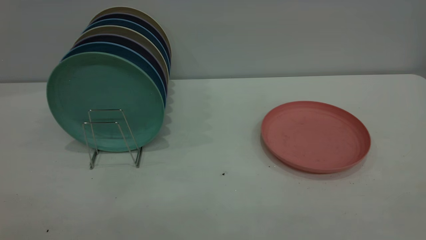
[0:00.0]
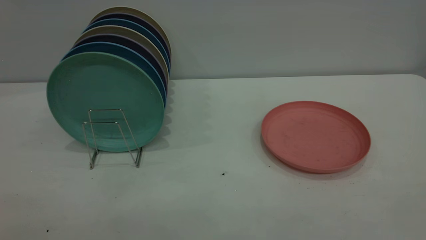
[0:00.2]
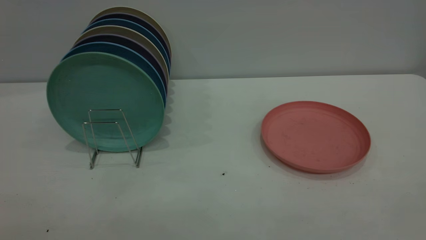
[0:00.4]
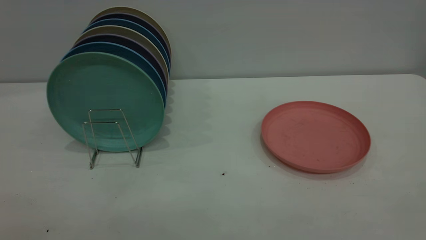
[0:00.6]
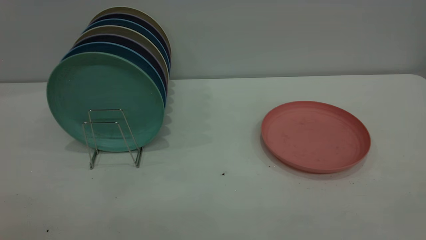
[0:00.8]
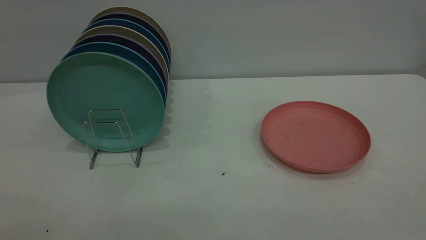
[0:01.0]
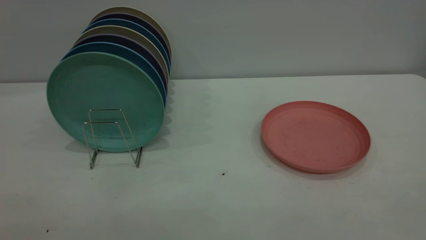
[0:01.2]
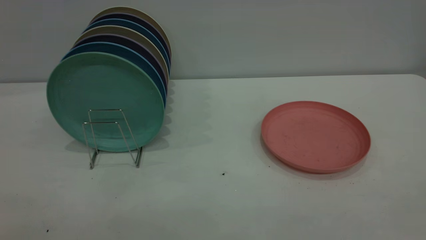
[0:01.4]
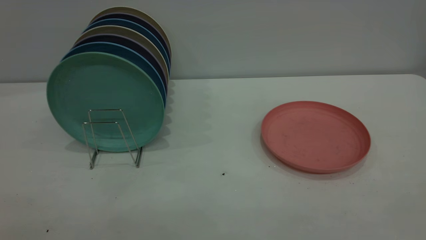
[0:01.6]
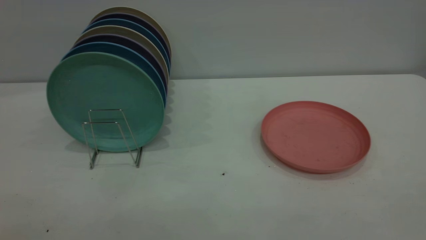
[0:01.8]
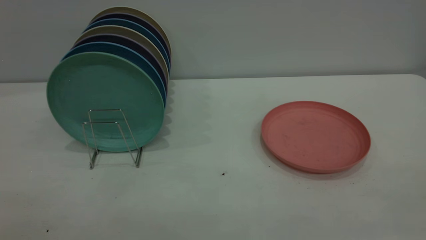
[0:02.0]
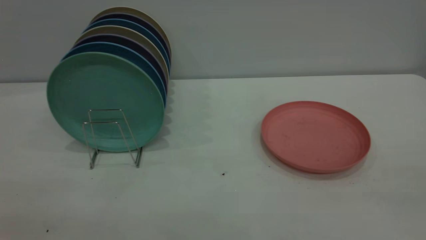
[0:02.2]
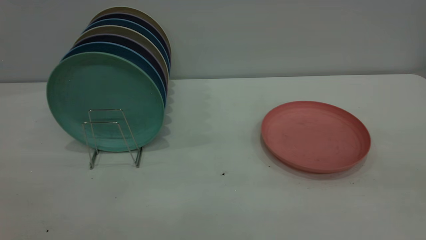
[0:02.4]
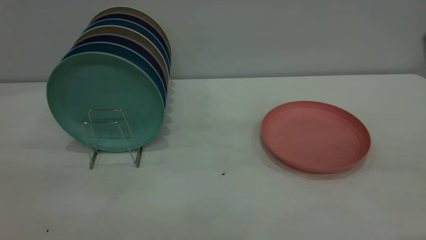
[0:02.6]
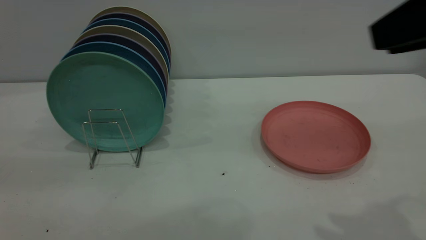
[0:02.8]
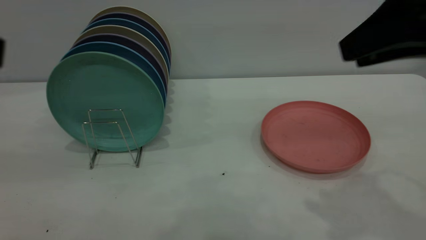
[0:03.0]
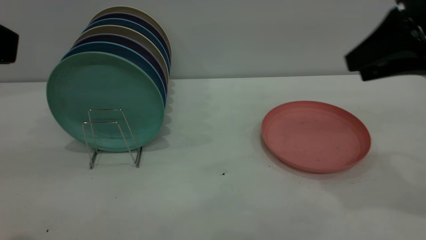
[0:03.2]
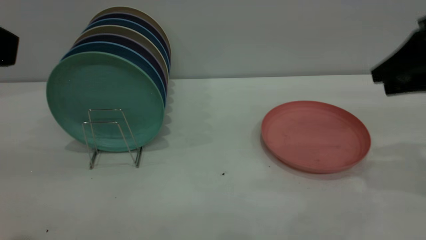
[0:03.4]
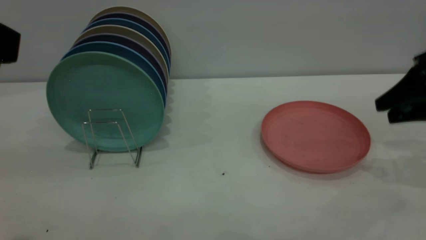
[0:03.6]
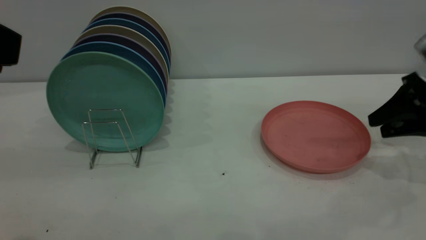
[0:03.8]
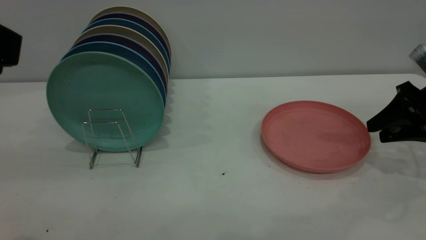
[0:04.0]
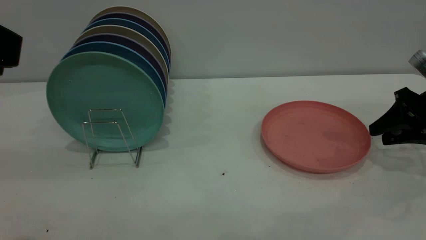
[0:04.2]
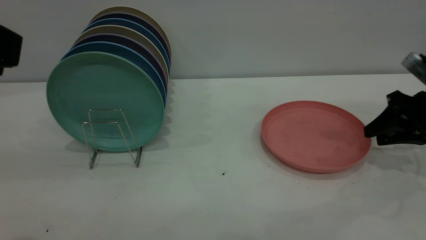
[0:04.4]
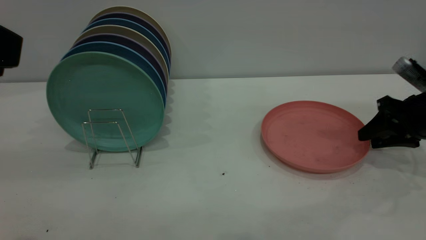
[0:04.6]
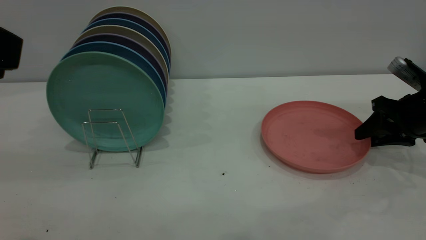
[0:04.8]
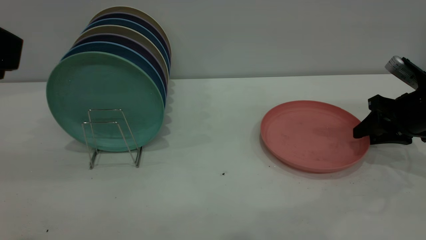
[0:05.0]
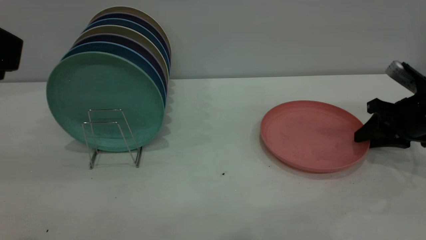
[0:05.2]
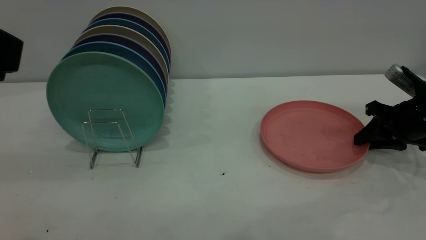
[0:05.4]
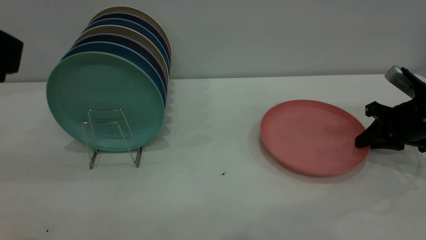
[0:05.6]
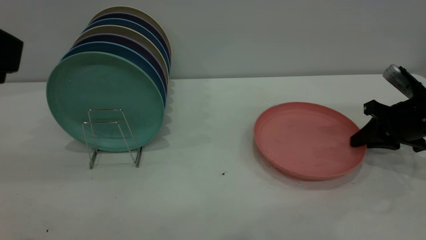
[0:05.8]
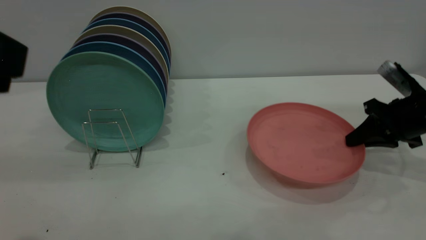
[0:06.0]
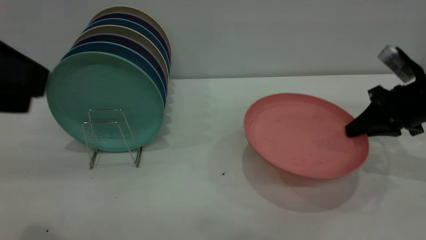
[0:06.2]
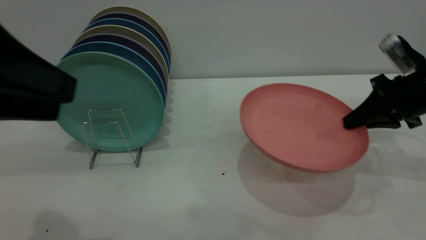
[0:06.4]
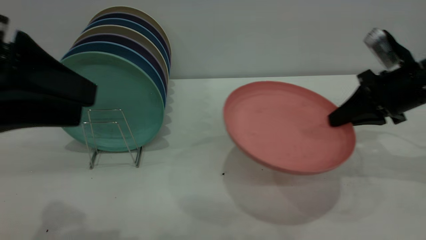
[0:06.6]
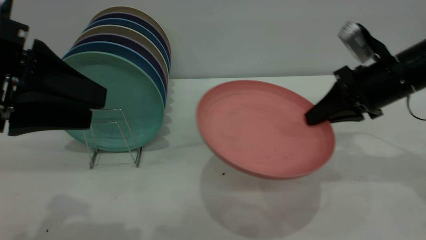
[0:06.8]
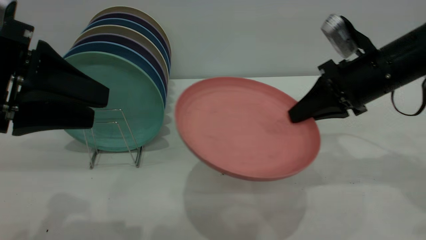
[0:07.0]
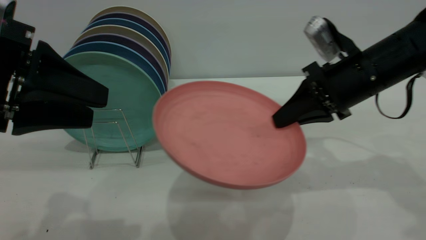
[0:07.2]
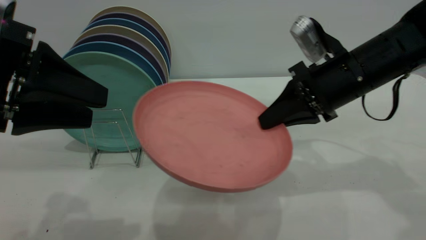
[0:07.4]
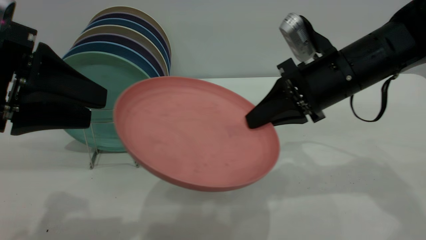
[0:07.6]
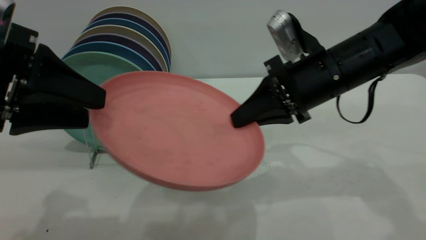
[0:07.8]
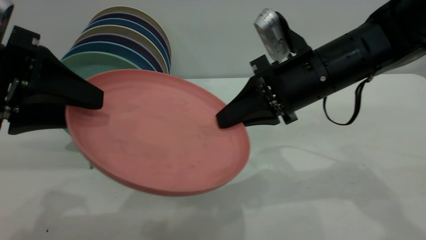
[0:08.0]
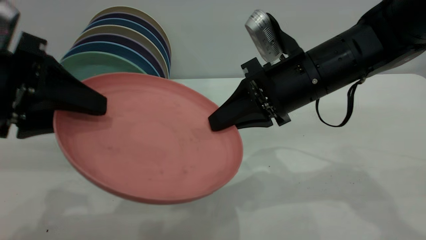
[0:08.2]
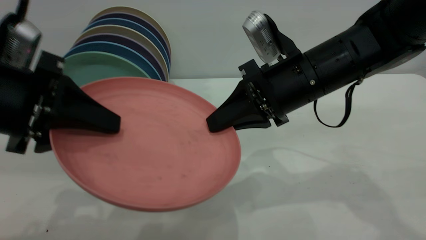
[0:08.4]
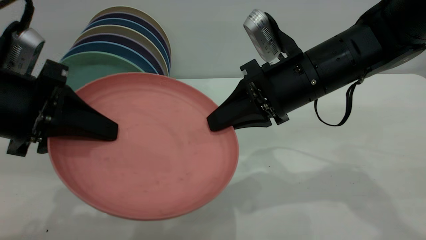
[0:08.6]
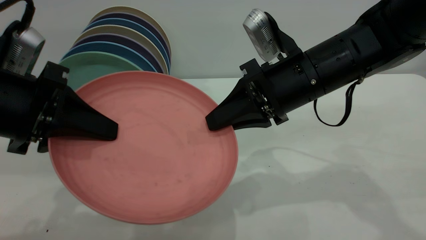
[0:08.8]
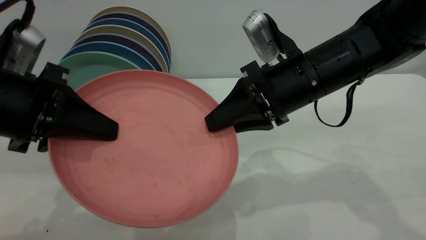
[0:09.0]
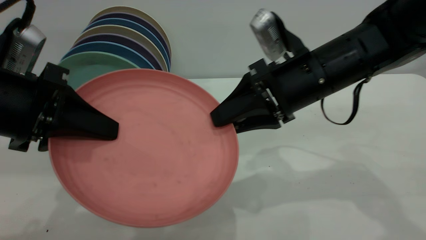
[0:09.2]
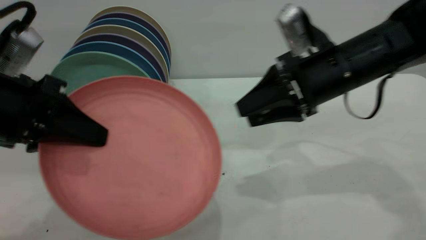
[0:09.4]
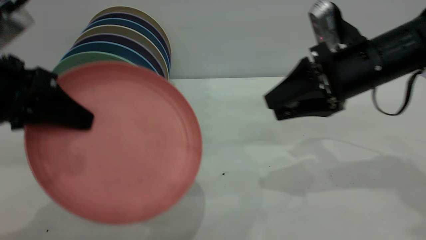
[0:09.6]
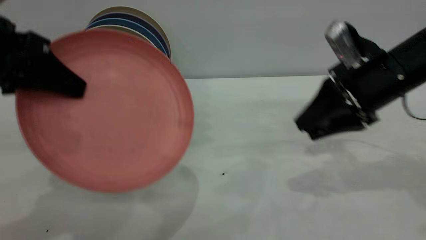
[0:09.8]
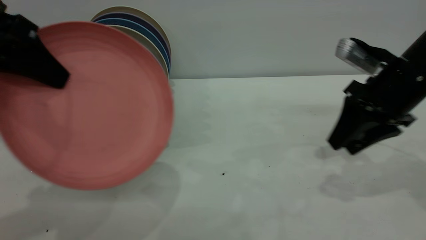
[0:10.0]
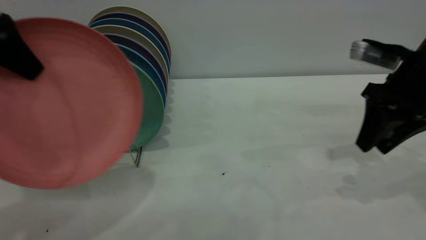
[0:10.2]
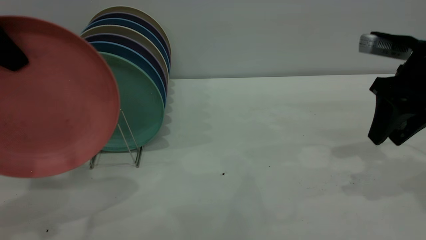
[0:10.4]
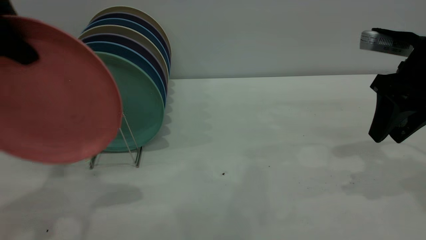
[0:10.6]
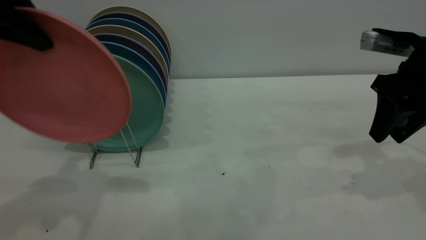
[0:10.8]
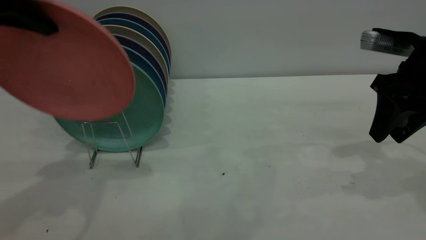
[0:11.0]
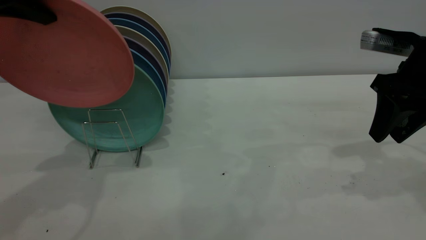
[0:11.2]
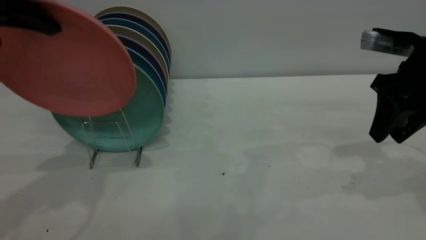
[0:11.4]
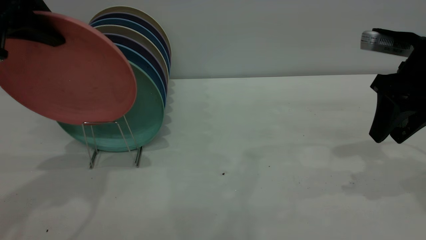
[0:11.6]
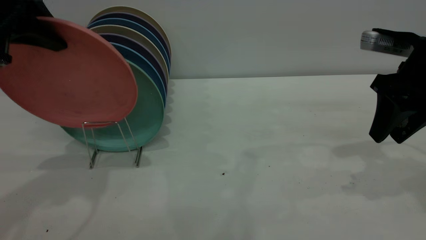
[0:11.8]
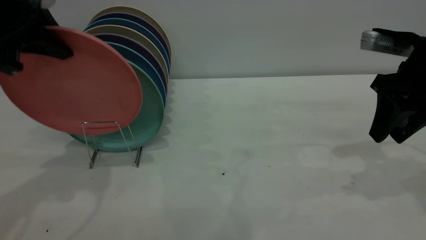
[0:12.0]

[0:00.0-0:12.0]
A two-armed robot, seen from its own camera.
Task of the whole recording: the right gripper grasp the pink plate, the right gripper pass the pink plate to the left gripper, and the left gripper place the pink plate on the plate rack.
Step, 0:00.0 to 0:06.6: Pick up the plate with the right gripper.
Step, 0:06.8 to 0:09.8: Pass the plate from the right gripper to the left gripper.
0:00.0 to 0:01.6: Both grippers stay about where they are.
0:01.6 to 0:03.0: The right gripper travels forward by about 30 cm.
0:03.0 to 0:04.4: The right gripper heads downward, forward and to the right, covering roughly 25 cm.
0:04.4 to 0:06.0: The right gripper closes up.
0:06.0 to 0:07.6: The left gripper goes about 10 cm downward and forward. The right gripper travels to the left and upward by approximately 20 cm.
0:07.6 to 0:09.0: The left gripper closes up; the right gripper opens up.
0:09.0 to 0:10.4: The left gripper moves upward and forward, approximately 15 cm. The right gripper travels to the right by about 15 cm, and opens its fingers.
0:10.4 to 0:12.0: The left gripper changes place by about 5 cm.

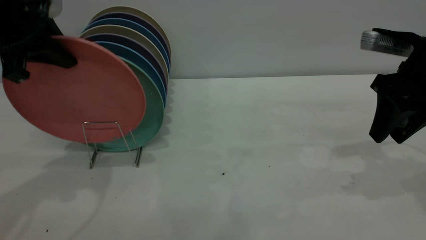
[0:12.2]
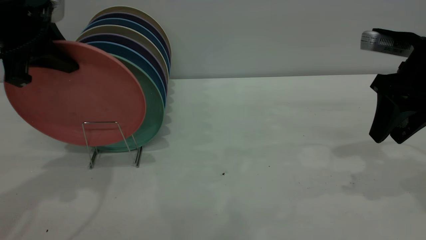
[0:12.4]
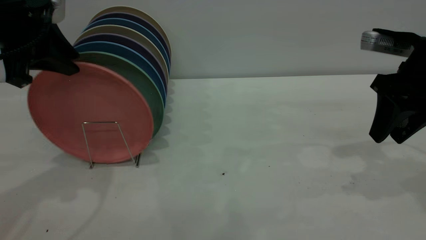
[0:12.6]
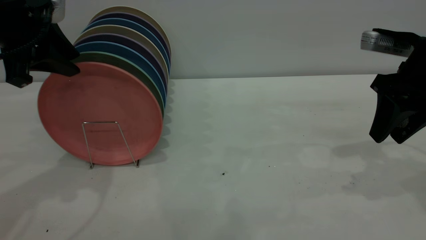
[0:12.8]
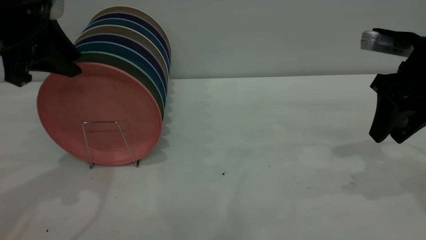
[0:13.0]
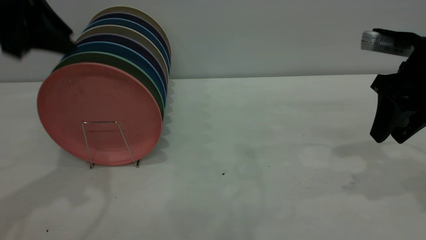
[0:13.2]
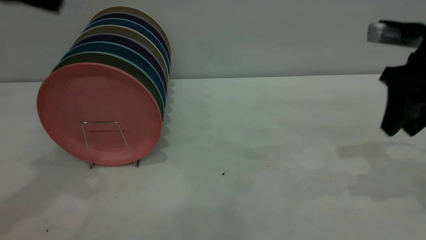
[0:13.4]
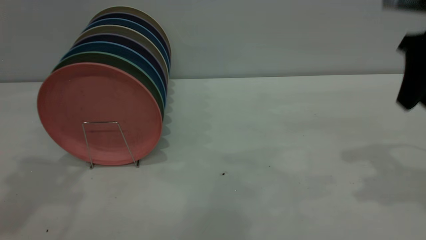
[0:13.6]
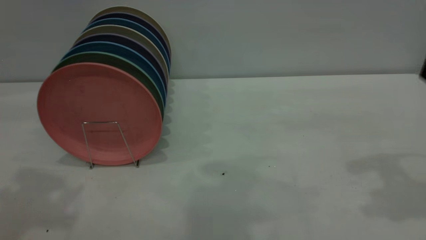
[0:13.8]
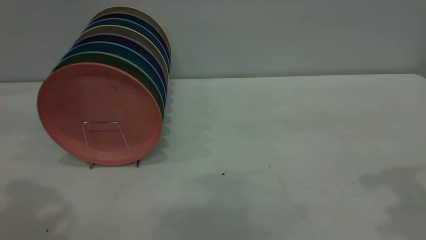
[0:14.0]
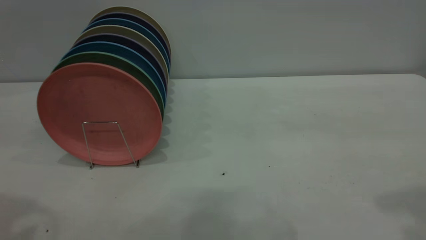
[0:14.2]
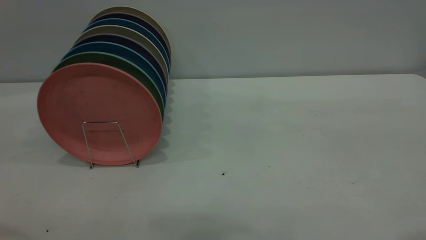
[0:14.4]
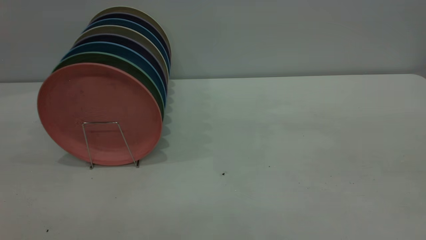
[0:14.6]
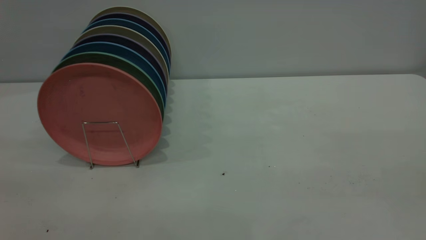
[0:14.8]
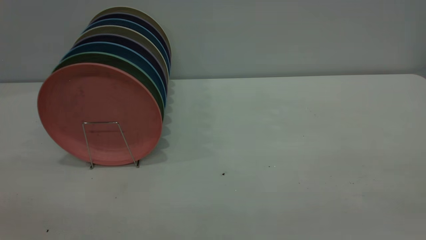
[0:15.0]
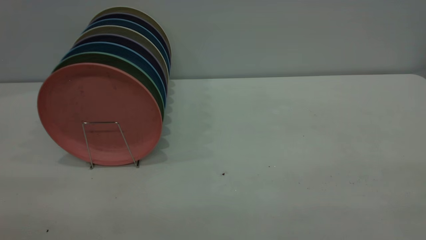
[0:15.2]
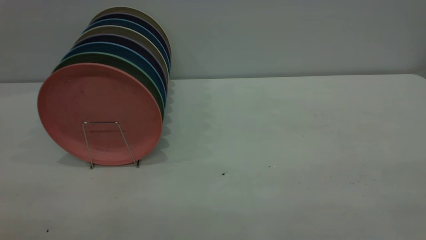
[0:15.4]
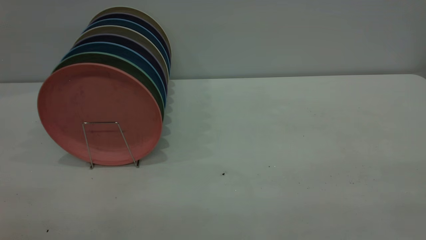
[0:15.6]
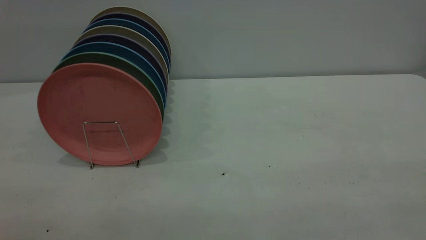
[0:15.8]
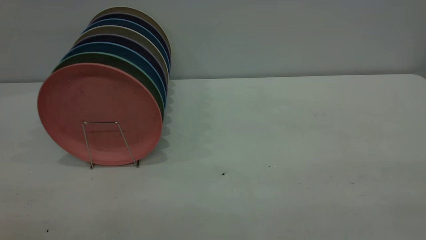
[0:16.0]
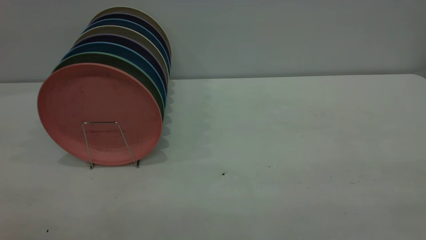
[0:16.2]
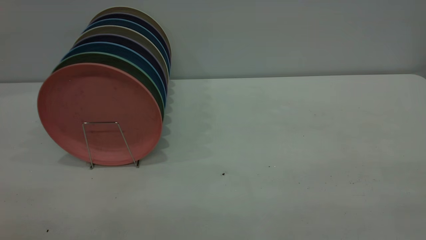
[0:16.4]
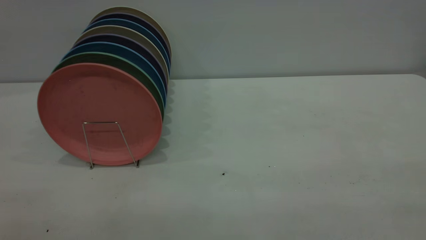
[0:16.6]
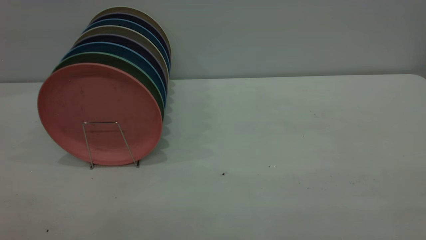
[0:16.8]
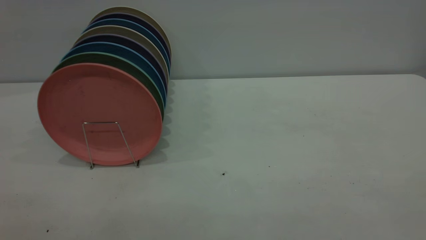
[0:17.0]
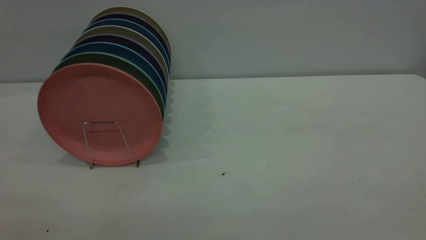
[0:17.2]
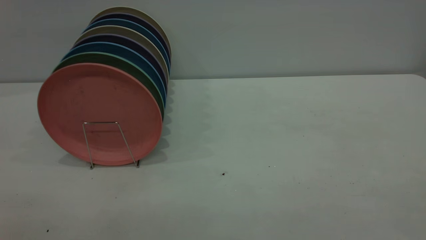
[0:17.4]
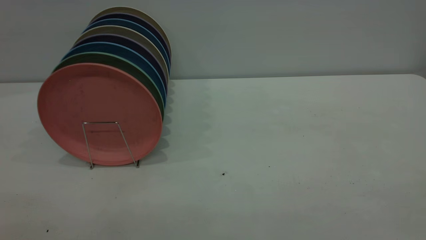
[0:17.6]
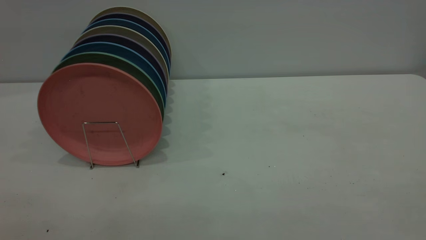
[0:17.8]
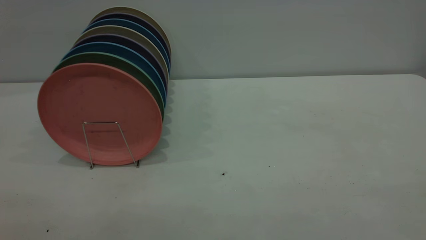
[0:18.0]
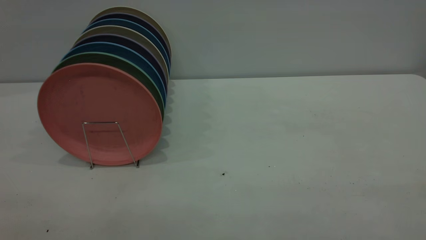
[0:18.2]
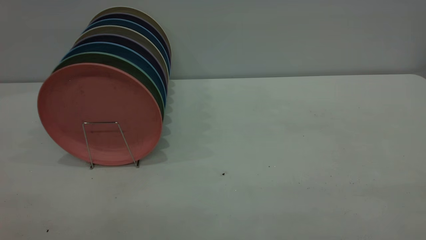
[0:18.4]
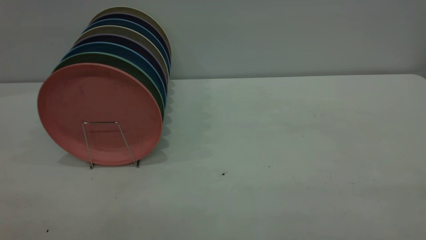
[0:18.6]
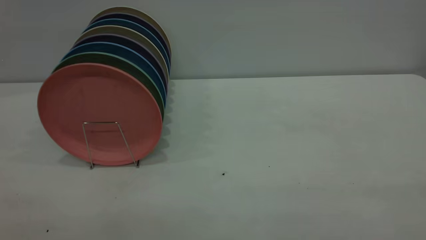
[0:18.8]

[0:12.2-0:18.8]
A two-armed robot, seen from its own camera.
Task of the whole recording: the right gripper grasp the pink plate, the right gripper pass the pink plate to the left gripper, and the left gripper place the pink plate on the plate rack.
0:12.2 to 0:13.8: Both grippers move upward and backward, approximately 15 cm. The left gripper opens.
